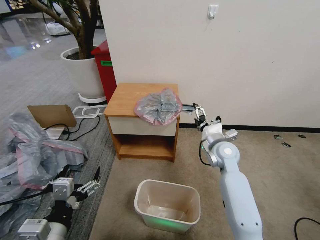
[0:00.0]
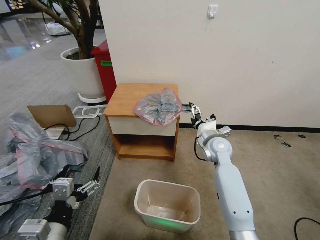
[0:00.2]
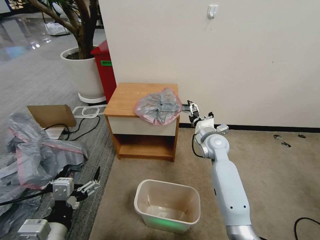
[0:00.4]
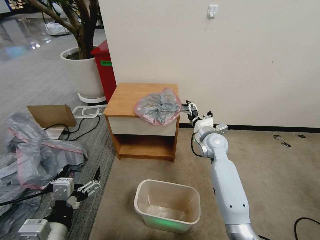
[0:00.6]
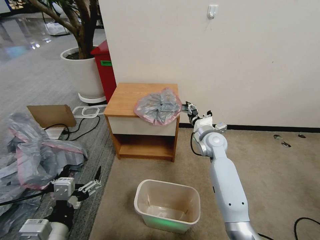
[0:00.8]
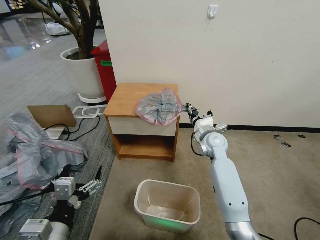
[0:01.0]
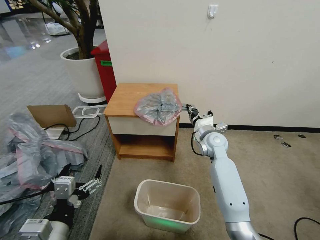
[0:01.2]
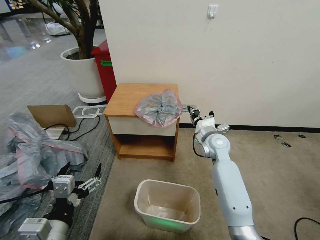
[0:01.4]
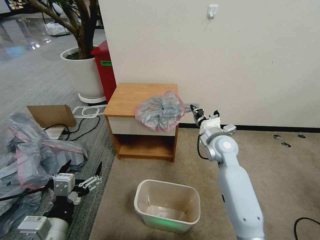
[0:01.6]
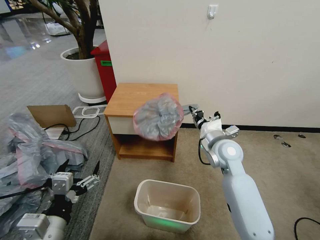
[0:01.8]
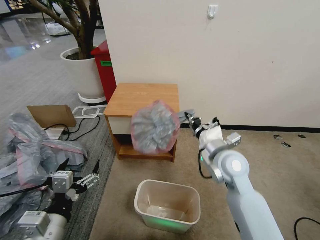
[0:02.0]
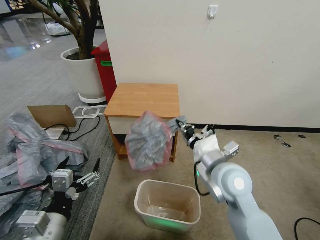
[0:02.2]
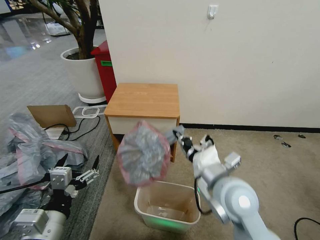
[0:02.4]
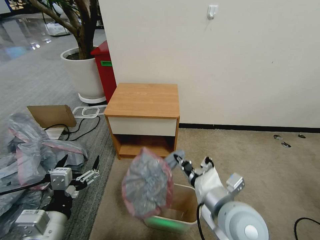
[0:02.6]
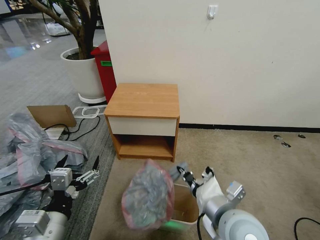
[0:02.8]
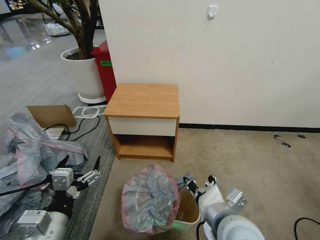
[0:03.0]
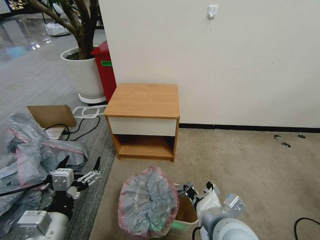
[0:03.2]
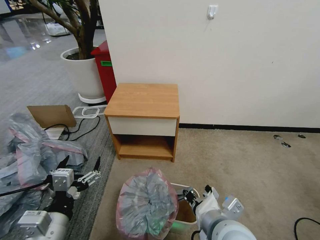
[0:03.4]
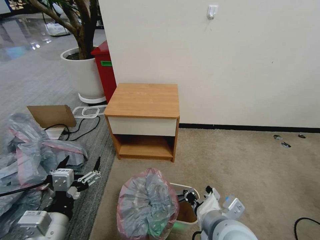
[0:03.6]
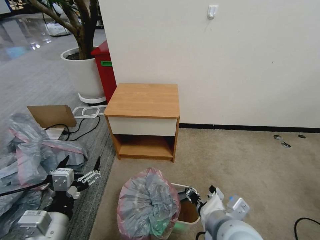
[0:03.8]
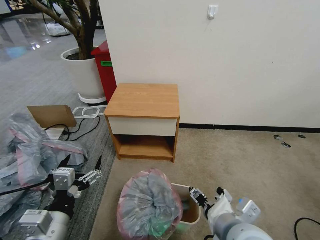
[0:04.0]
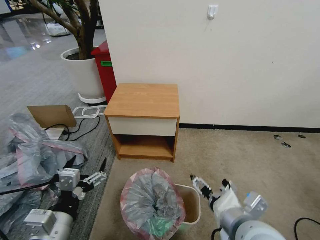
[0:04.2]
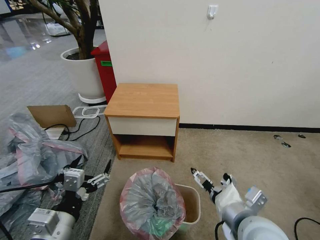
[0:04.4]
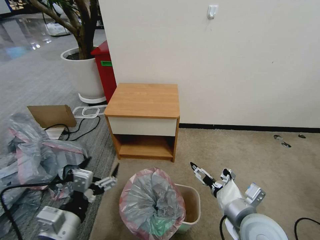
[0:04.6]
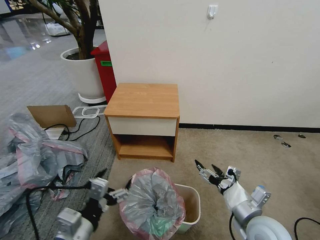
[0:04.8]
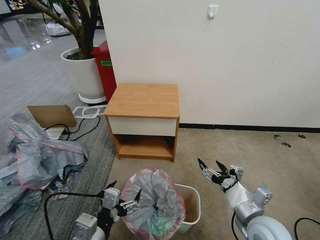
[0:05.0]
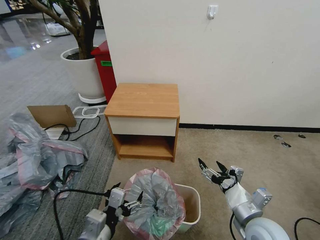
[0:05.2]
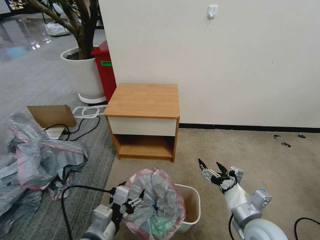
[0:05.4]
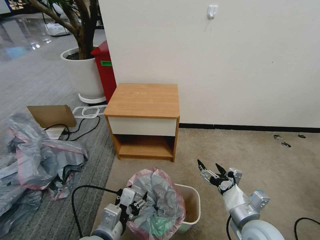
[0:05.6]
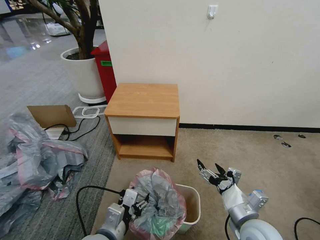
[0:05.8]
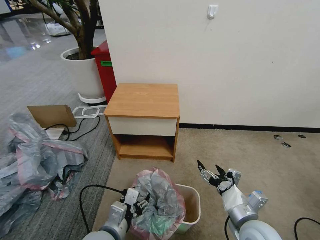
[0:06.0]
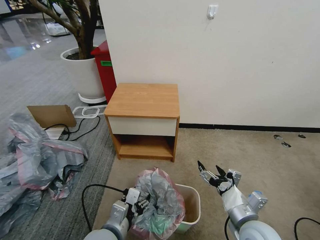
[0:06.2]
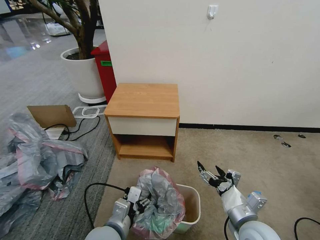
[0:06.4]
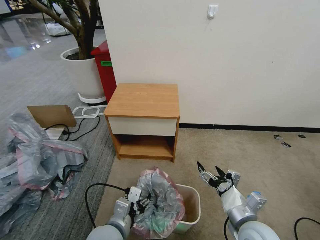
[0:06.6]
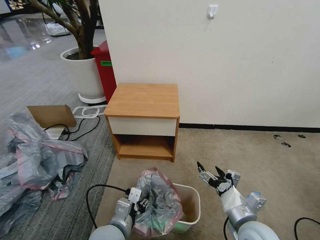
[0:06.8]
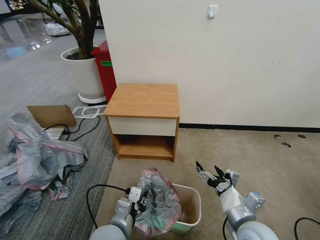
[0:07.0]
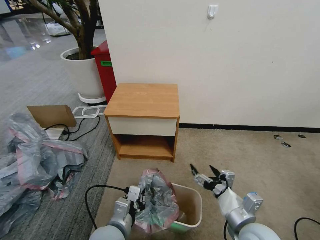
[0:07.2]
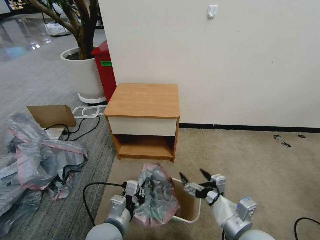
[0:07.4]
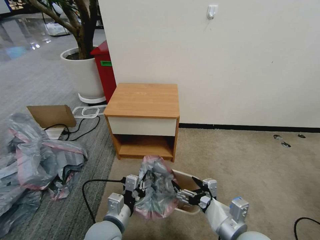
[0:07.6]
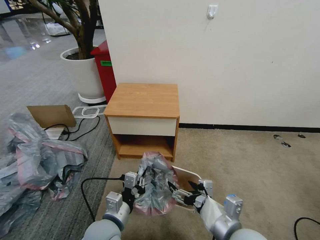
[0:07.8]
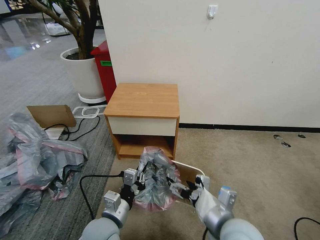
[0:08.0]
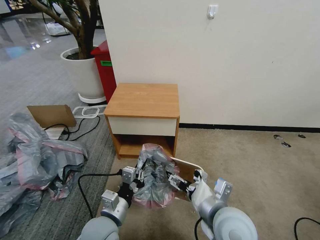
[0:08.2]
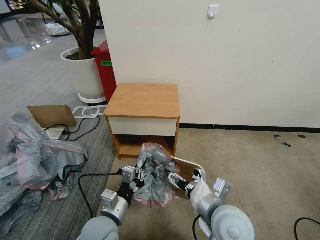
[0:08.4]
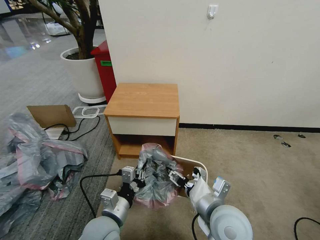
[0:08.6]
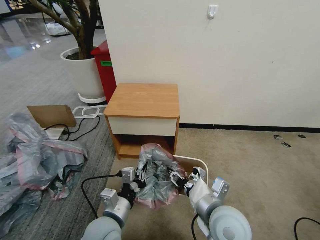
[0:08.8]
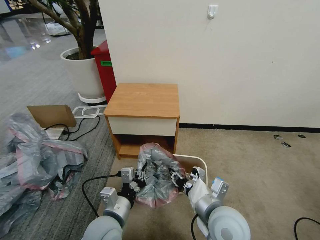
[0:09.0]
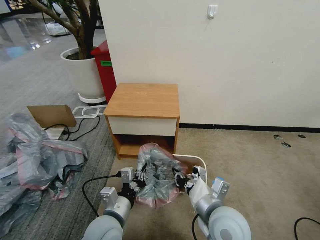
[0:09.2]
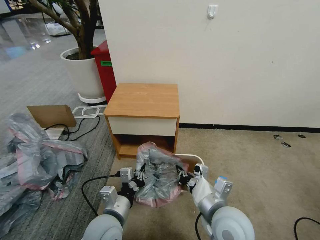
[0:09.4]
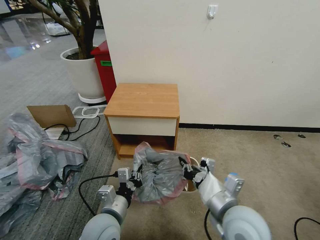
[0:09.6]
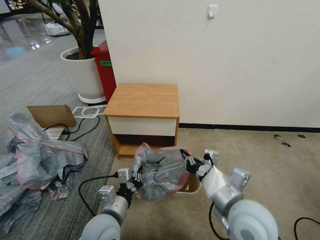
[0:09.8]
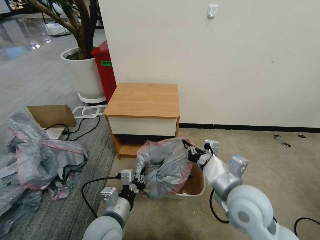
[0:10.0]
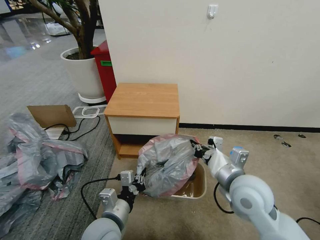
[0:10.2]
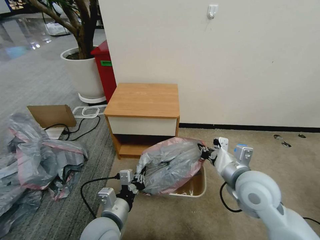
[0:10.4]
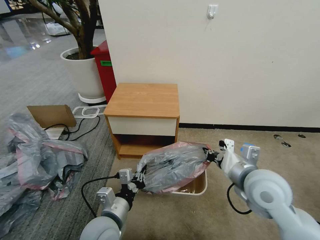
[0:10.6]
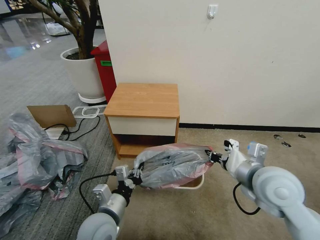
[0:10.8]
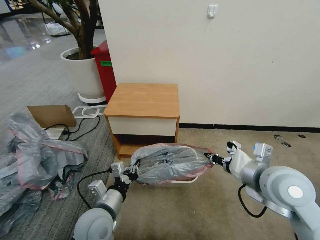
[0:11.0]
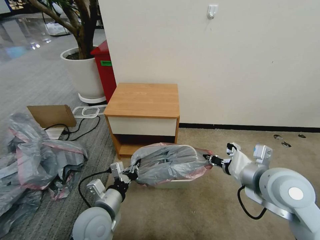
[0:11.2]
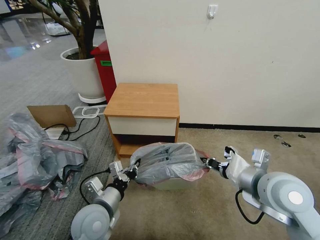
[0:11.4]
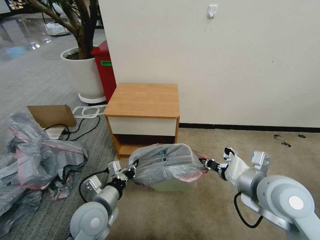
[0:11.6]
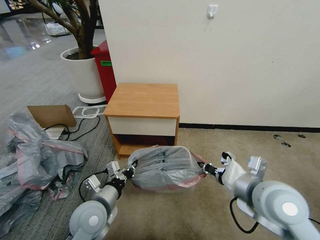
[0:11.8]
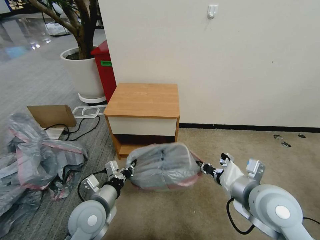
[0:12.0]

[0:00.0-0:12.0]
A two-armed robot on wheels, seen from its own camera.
Task of the whole recording: Pick up the garbage bag from the table and place it over the trash can.
0:00.0 to 0:01.6: The right gripper closes its fingers.
0:01.6 to 0:03.0: The right gripper moves backward, some 25 cm.
0:03.0 to 0:04.4: The right gripper opens.
0:04.4 to 0:06.0: The left gripper shifts roughly 10 cm to the right and downward, while the right gripper is displaced downward by roughly 10 cm.
0:06.0 to 0:07.6: The right gripper changes place by about 5 cm; the left gripper closes up.
0:07.6 to 0:09.0: The right gripper travels to the left and forward by some 10 cm, and closes up.
0:09.0 to 0:10.4: The right gripper shifts about 10 cm to the right, forward and upward, and closes.
0:10.4 to 0:12.0: The left gripper ends up about 5 cm from where it was.

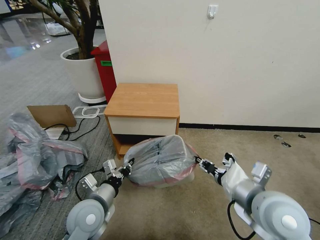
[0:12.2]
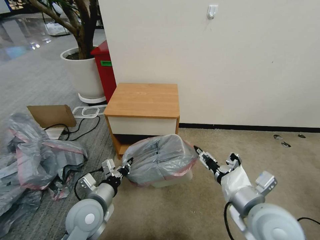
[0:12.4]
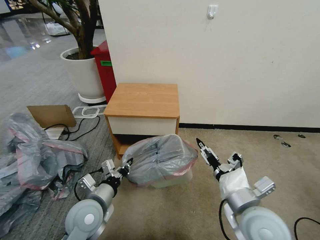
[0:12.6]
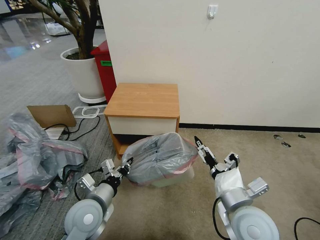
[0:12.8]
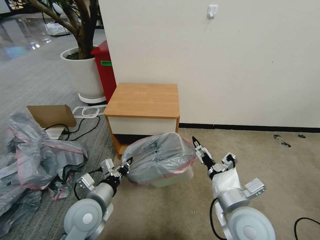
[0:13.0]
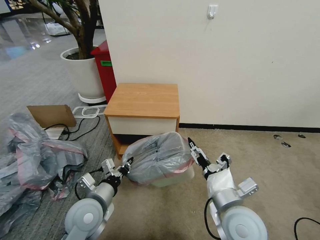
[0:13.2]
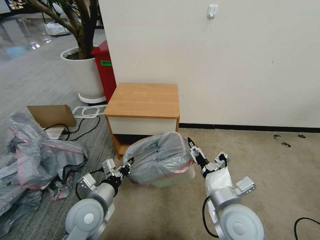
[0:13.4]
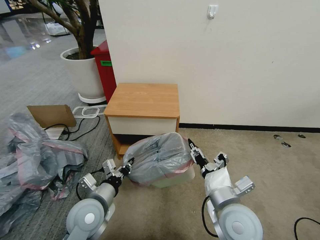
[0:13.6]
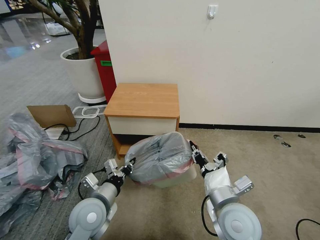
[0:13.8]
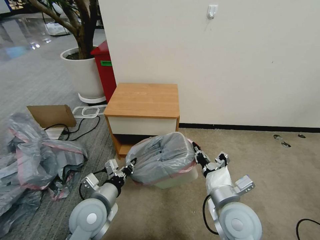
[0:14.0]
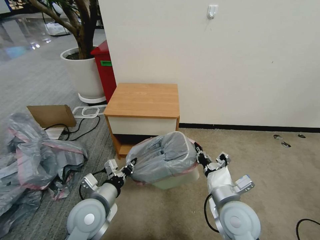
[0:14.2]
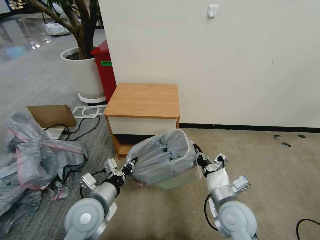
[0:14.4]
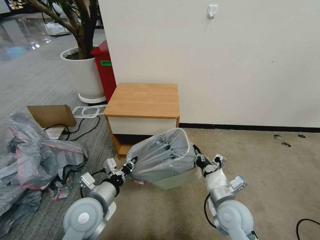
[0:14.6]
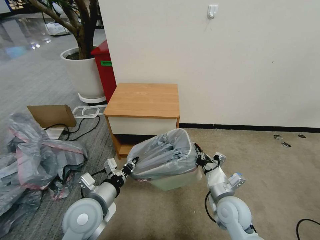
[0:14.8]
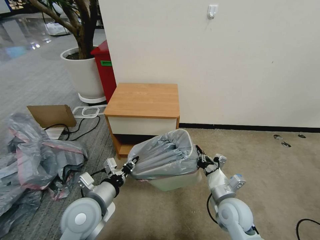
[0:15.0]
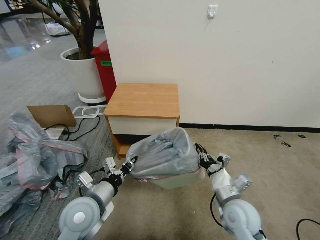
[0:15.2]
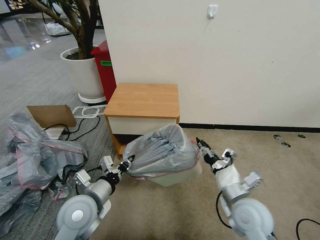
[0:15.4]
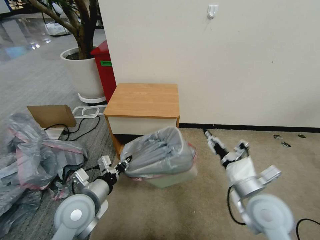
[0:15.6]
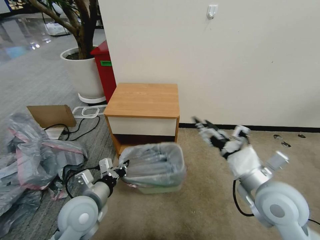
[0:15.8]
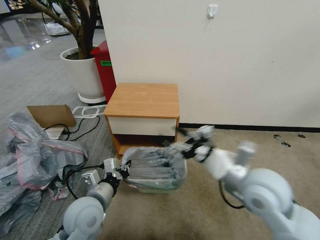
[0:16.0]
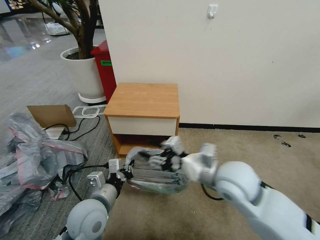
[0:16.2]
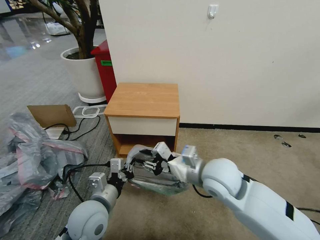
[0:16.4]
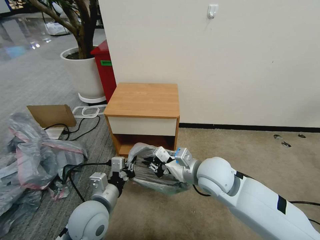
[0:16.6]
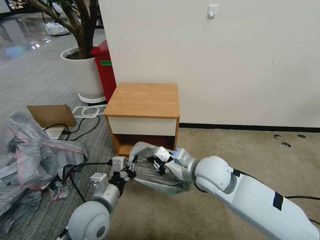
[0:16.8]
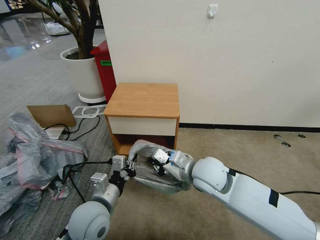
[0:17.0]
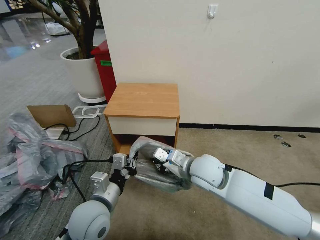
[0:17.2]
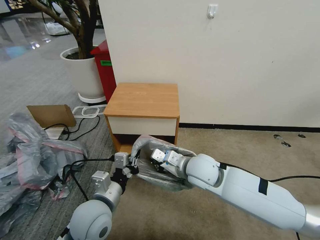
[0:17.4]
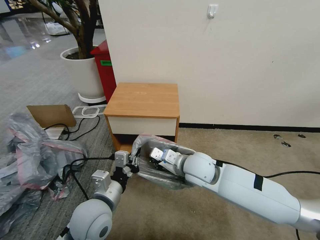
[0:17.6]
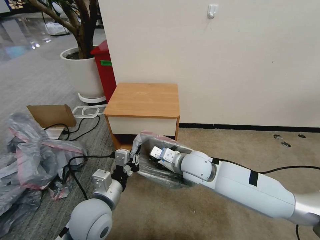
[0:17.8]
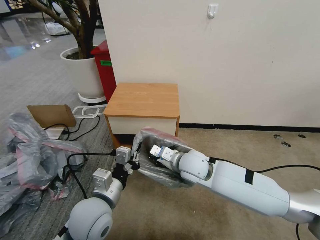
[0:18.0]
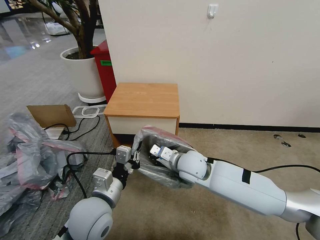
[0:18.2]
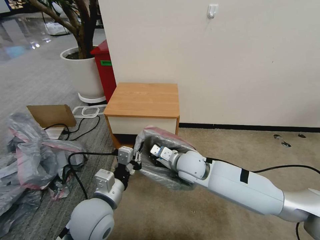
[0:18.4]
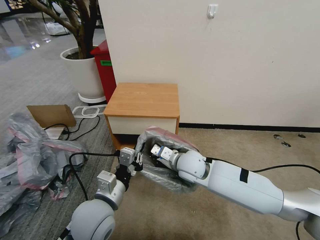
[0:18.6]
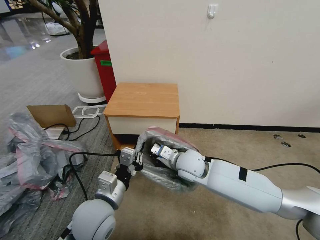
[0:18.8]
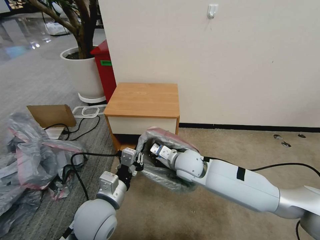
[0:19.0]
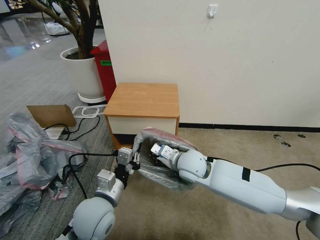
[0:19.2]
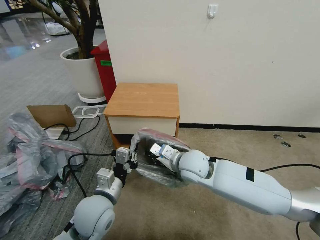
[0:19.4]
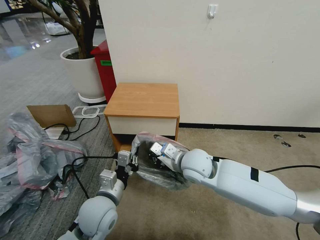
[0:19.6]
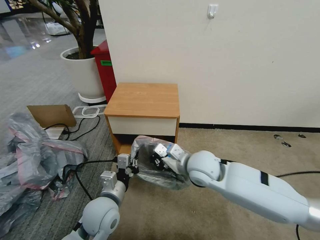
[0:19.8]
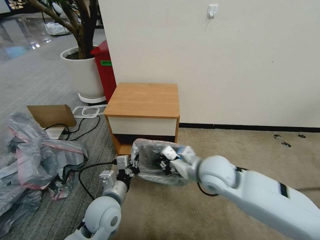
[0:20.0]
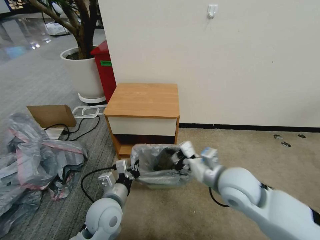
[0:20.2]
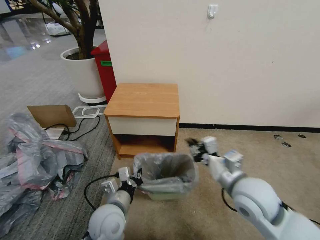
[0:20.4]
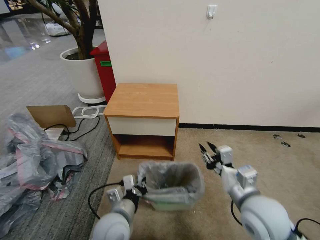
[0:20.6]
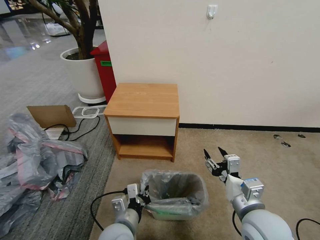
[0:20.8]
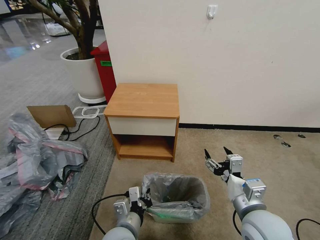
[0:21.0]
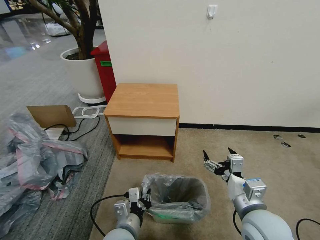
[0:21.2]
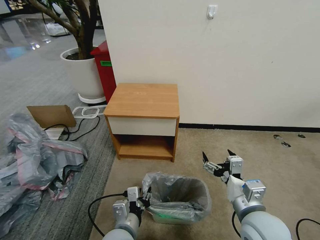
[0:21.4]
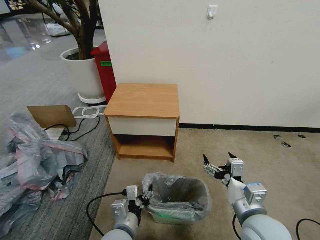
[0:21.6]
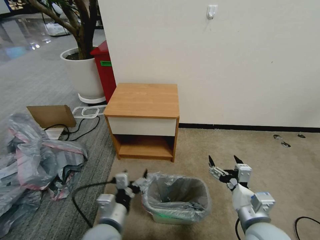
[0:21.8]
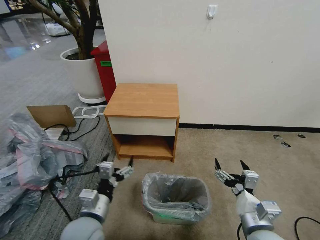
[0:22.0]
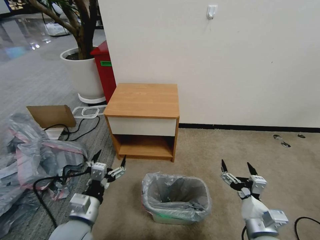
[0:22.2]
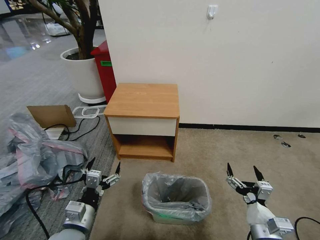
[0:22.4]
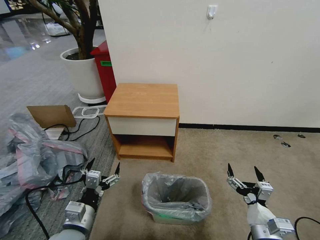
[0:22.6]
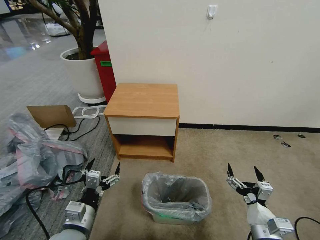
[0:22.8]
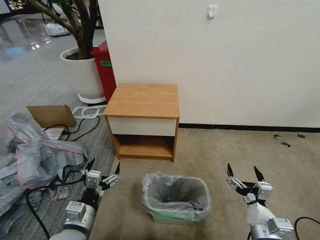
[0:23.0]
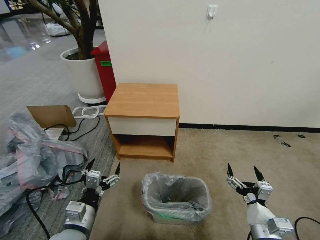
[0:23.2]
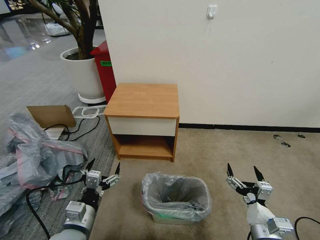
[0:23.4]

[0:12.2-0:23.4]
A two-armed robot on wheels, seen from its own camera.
Task of the whole recording: Pick up the garbage bag from the table and place it over the trash can.
0:12.2 to 0:13.8: The right gripper heads downward and to the left, covering some 10 cm, and opens, then closes once more.
0:13.8 to 0:15.4: The right gripper shifts roughly 5 cm to the right, and reaches some 10 cm downward, then returns.
0:15.4 to 0:17.0: The right gripper heads to the left, forward and upward, covering some 15 cm, and opens, then closes again.
0:17.0 to 0:18.6: The right gripper is displaced forward by some 5 cm.
0:18.6 to 0:20.2: The right gripper heads backward, to the right and upward, covering roughly 15 cm; the left gripper shifts about 5 cm downward.
0:20.2 to 0:21.8: The right gripper heads backward, downward and to the right, covering about 15 cm, and opens up, while the left gripper heads backward, covering approximately 5 cm, and opens up.
0:21.8 to 0:23.4: The left gripper goes approximately 10 cm to the left; the right gripper is displaced downward by some 5 cm.
